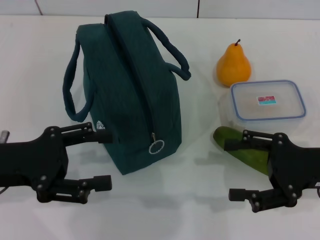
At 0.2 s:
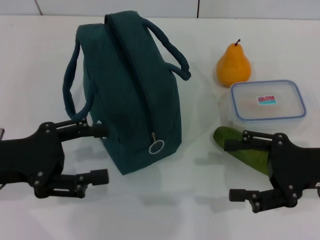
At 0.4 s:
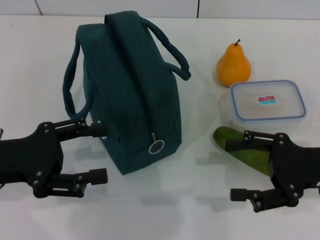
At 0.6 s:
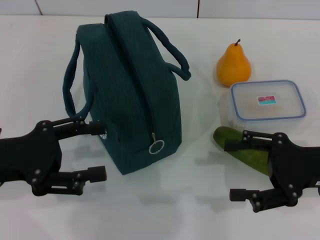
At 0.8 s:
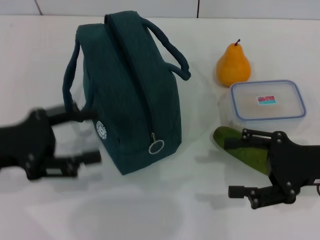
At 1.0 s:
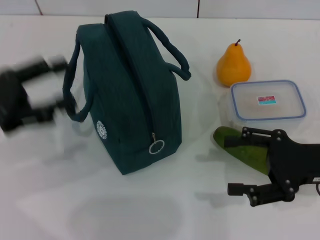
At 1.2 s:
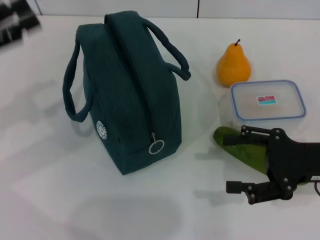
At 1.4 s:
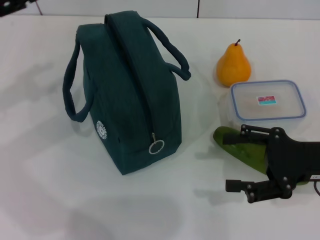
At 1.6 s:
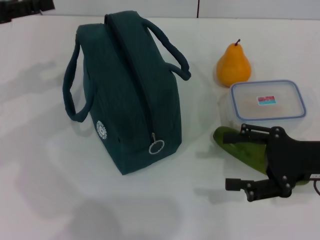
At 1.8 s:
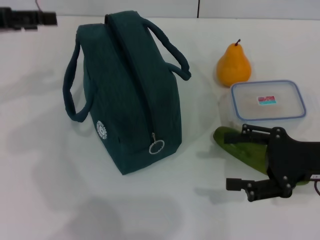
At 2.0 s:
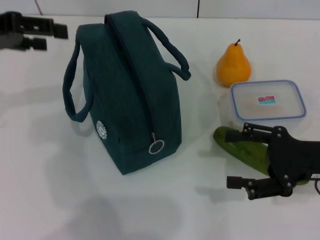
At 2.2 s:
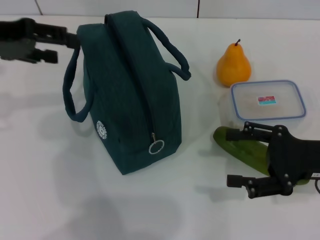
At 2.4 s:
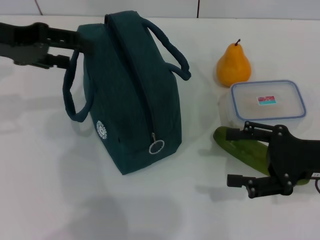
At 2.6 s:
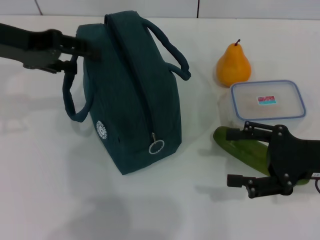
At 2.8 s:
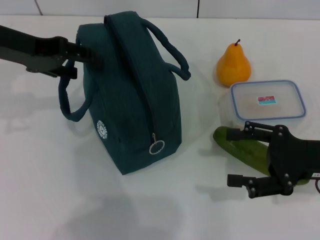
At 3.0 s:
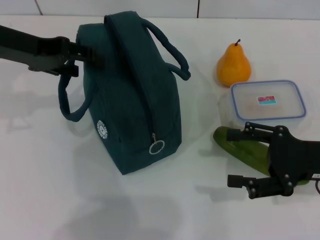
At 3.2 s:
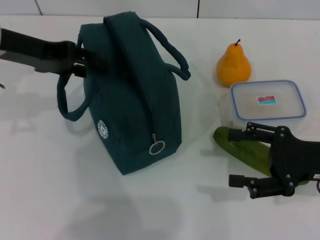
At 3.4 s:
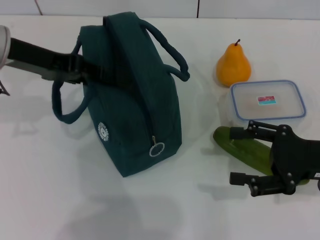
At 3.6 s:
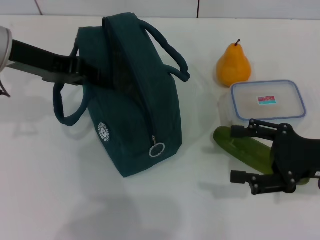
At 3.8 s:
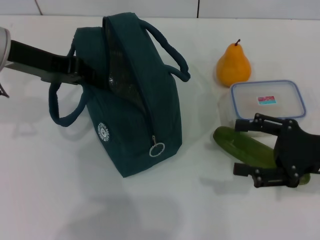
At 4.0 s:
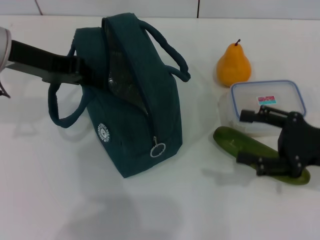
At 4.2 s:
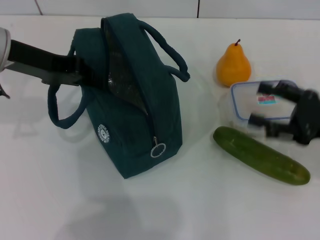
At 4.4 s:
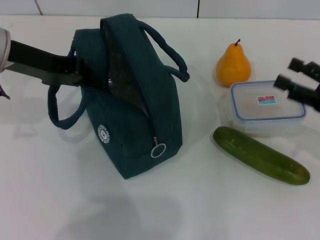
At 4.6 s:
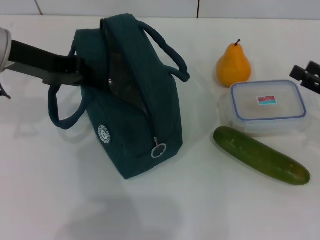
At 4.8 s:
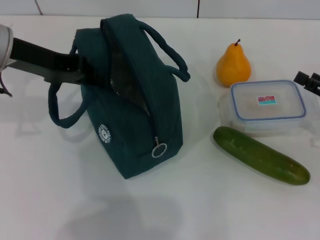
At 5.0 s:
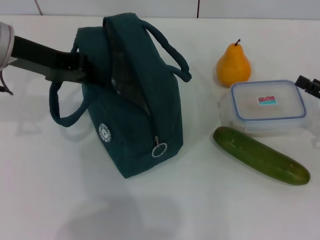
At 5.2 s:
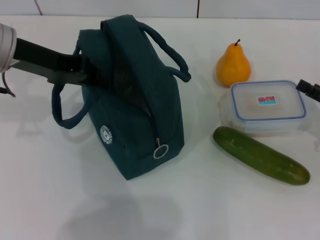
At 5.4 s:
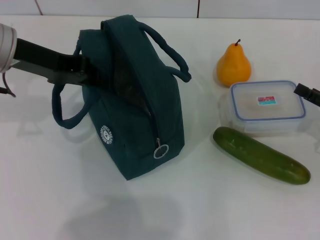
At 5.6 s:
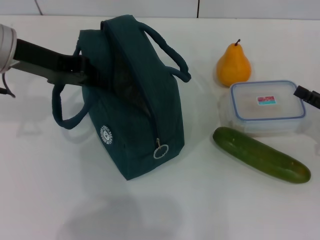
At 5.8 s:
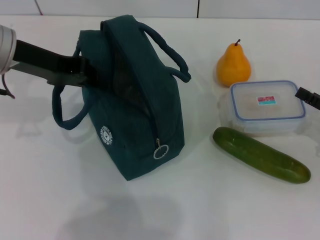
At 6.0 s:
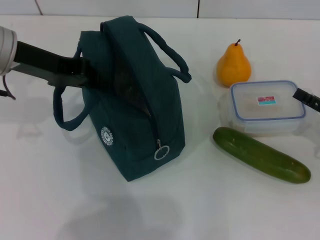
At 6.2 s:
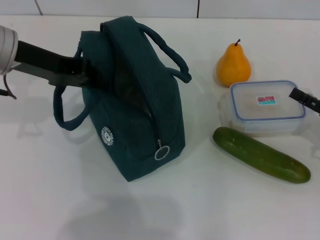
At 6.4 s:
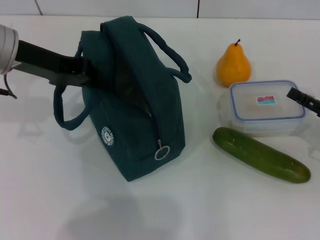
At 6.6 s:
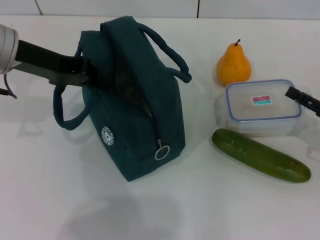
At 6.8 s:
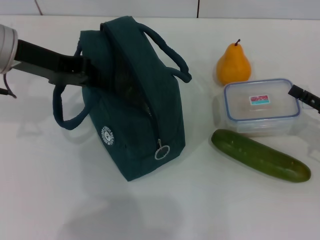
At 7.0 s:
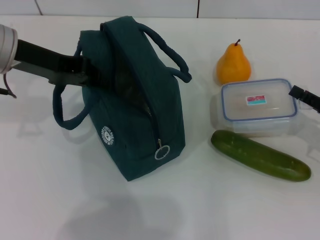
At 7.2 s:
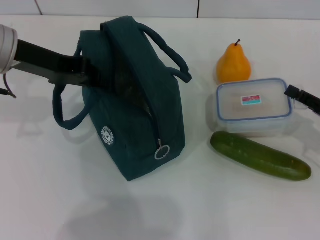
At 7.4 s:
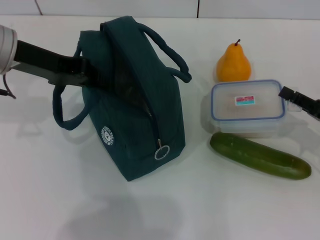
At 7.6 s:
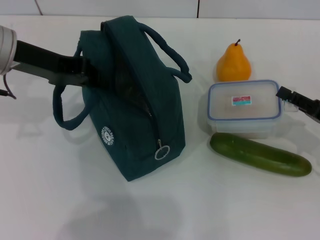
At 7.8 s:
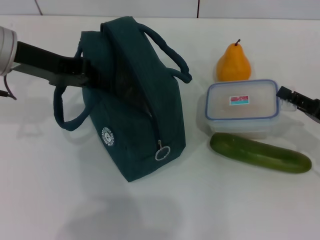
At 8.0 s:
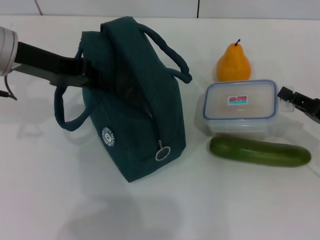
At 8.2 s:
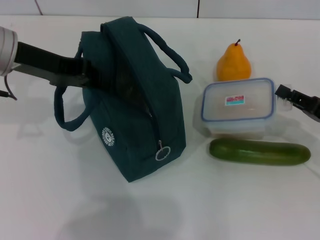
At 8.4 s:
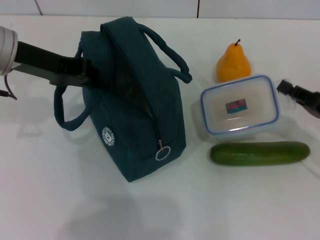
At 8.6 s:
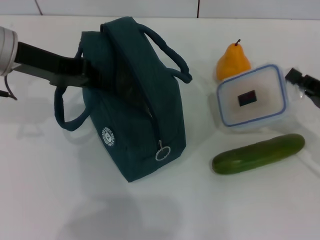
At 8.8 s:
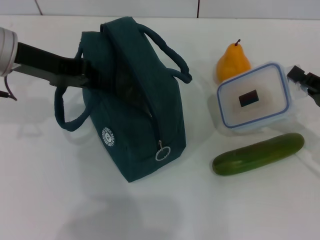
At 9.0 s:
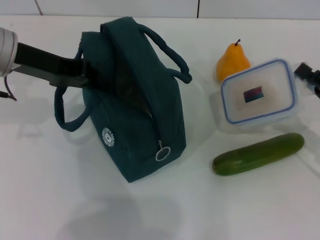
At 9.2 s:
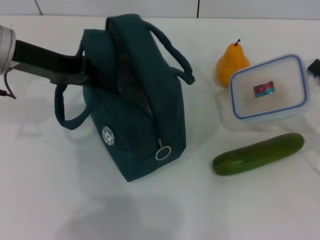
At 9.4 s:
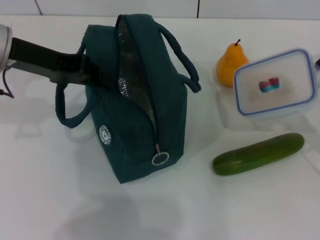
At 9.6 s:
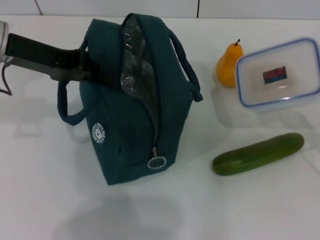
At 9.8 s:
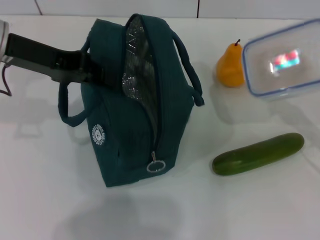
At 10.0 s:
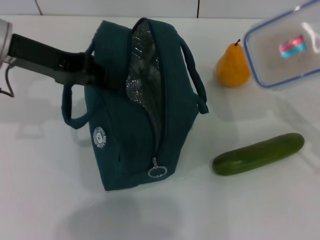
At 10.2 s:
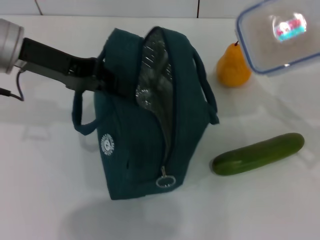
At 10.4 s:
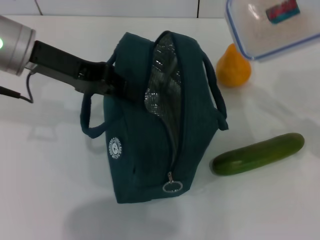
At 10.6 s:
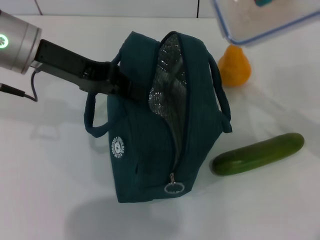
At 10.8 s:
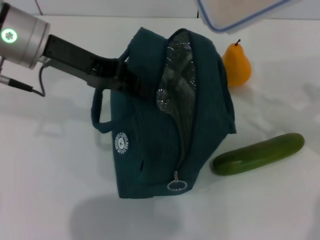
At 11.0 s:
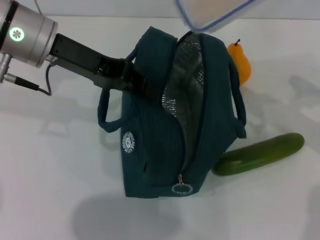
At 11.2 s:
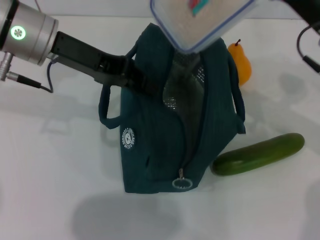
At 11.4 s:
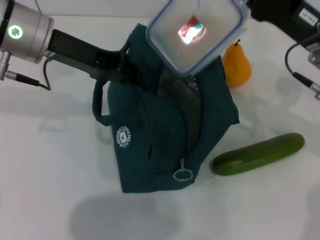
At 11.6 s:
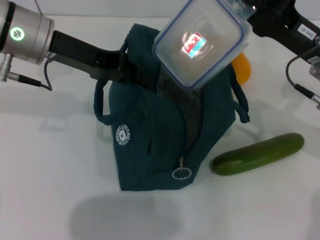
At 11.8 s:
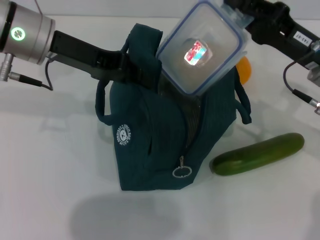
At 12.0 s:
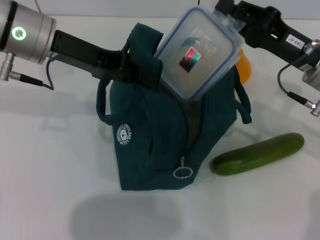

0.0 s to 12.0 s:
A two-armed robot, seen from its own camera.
Step, 0.0 to 3.6 s: Hold the lunch bag with your left hand.
Step, 3.8 to 8.0 s: Pick up the lunch box with your right hand.
0.0 to 1.6 s: The left gripper moves forward, upward and to the left, approximately 15 cm.
1.6 to 3.0 s: The left gripper goes roughly 10 cm to the right.
3.0 to 4.4 s: The left gripper closes its fingers. The right gripper heads to the right, covering roughly 5 cm.
4.4 to 6.0 s: The right gripper shifts by roughly 5 cm.
6.0 to 7.6 s: The right gripper closes up.
7.6 to 9.0 s: The right gripper closes.
9.0 to 10.4 s: The right gripper goes about 5 cm upward.
10.4 to 12.0 s: The right gripper travels to the left and forward by some 10 cm.

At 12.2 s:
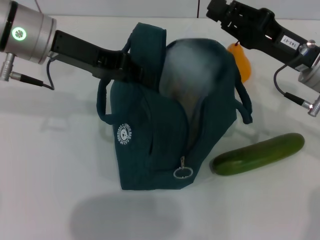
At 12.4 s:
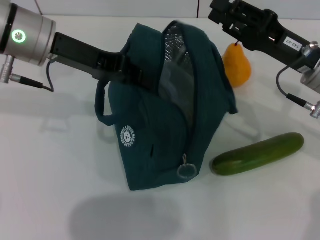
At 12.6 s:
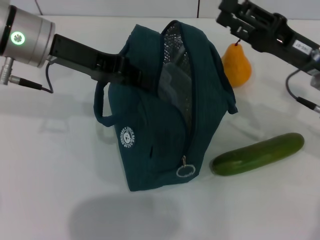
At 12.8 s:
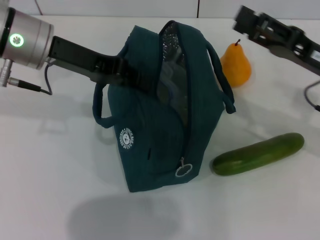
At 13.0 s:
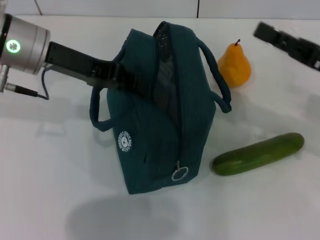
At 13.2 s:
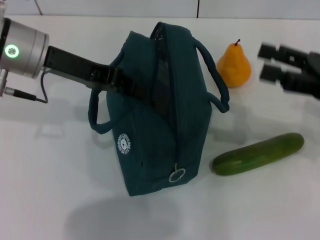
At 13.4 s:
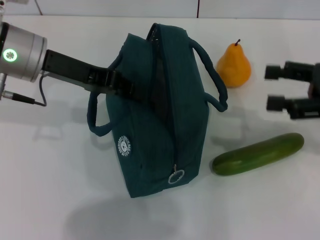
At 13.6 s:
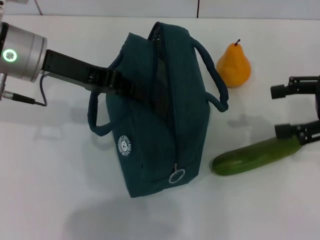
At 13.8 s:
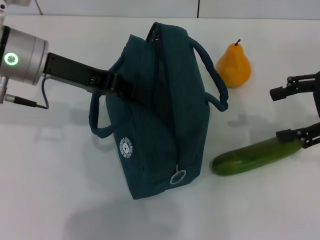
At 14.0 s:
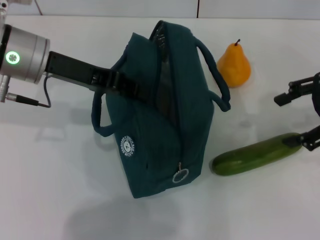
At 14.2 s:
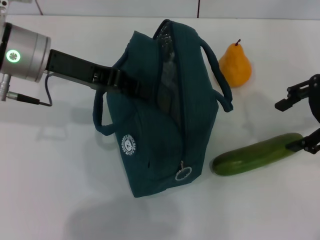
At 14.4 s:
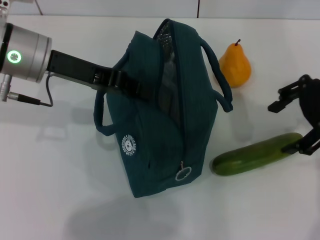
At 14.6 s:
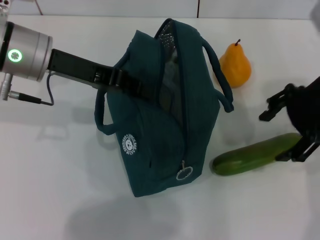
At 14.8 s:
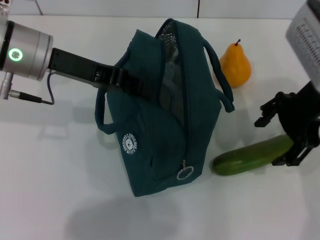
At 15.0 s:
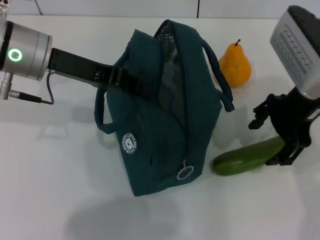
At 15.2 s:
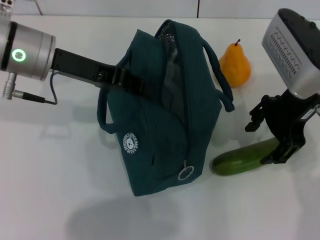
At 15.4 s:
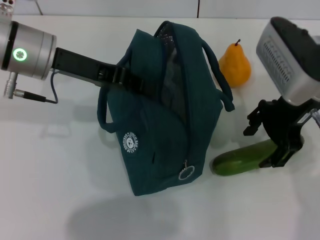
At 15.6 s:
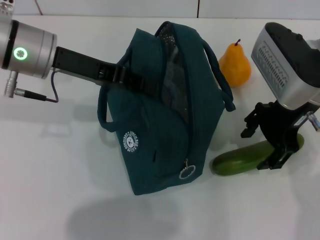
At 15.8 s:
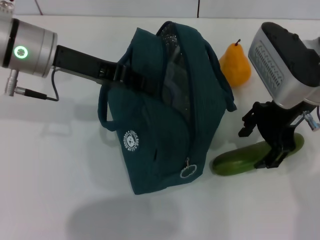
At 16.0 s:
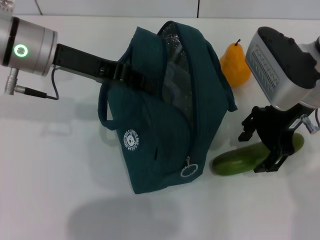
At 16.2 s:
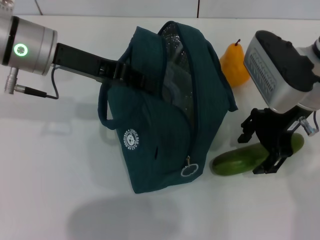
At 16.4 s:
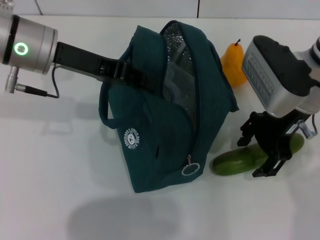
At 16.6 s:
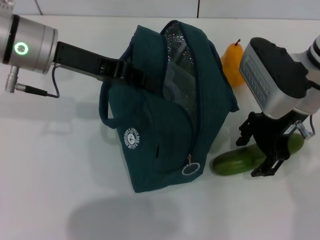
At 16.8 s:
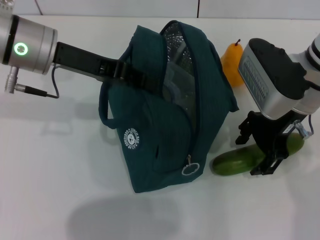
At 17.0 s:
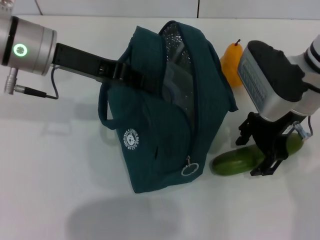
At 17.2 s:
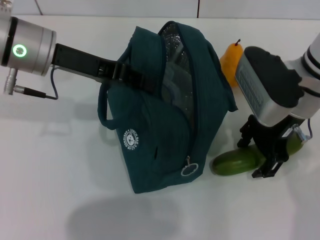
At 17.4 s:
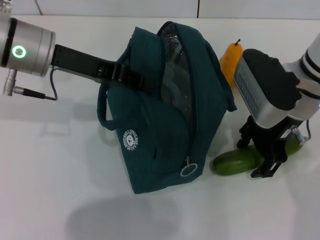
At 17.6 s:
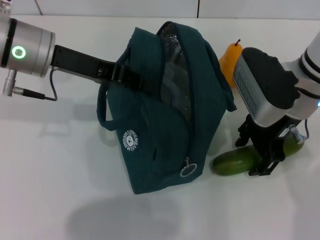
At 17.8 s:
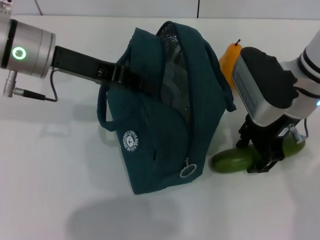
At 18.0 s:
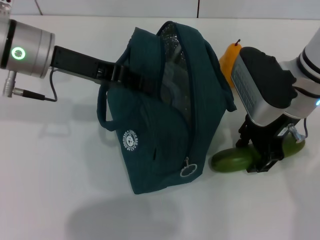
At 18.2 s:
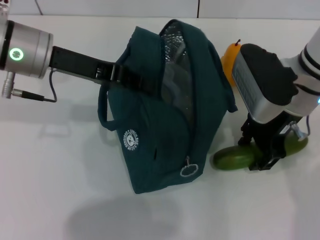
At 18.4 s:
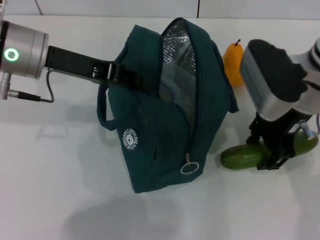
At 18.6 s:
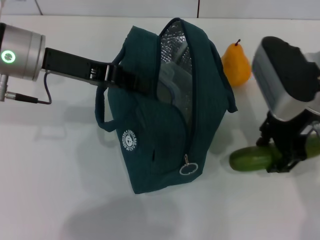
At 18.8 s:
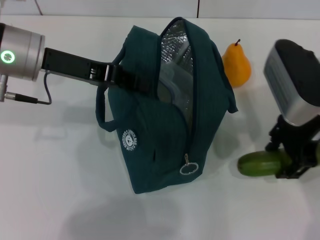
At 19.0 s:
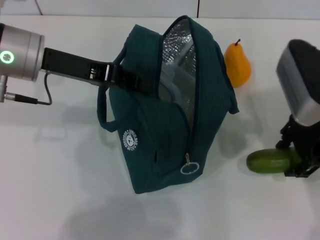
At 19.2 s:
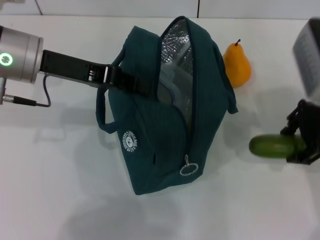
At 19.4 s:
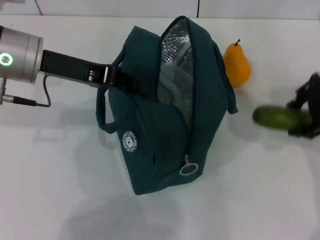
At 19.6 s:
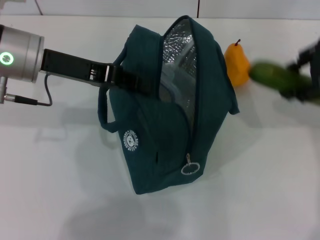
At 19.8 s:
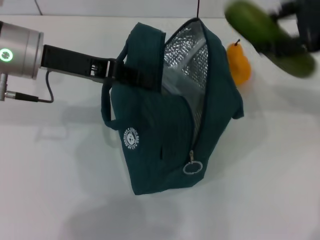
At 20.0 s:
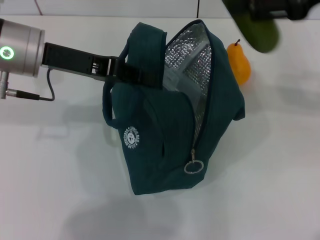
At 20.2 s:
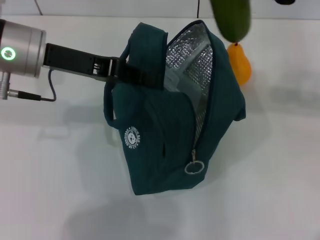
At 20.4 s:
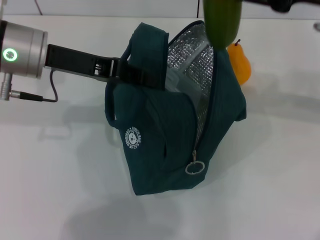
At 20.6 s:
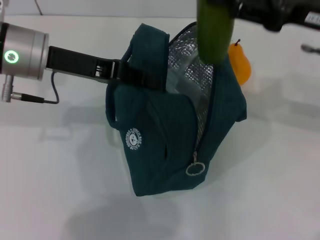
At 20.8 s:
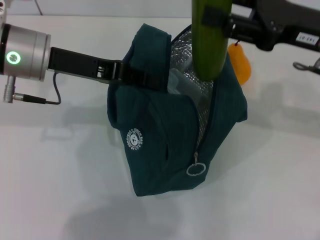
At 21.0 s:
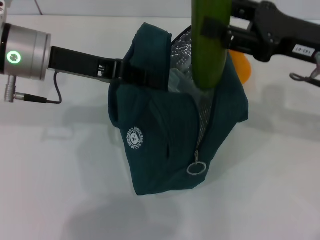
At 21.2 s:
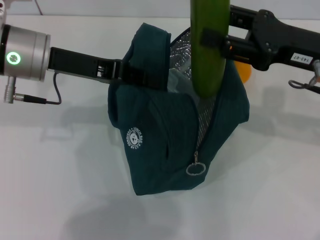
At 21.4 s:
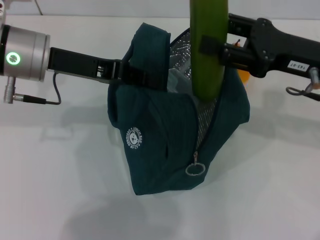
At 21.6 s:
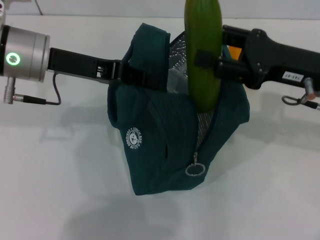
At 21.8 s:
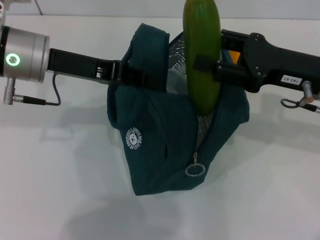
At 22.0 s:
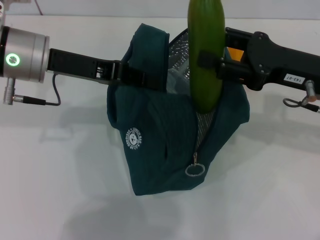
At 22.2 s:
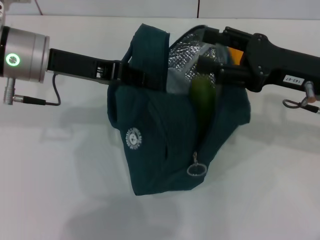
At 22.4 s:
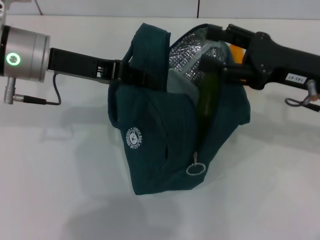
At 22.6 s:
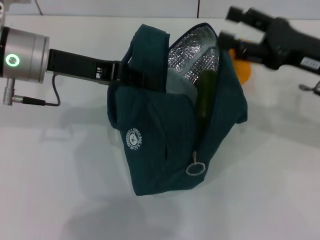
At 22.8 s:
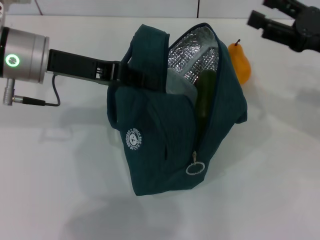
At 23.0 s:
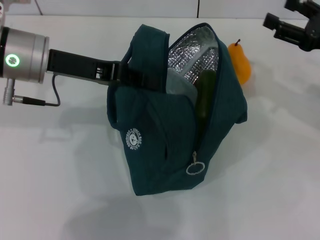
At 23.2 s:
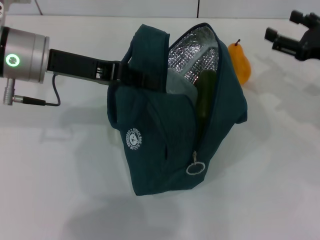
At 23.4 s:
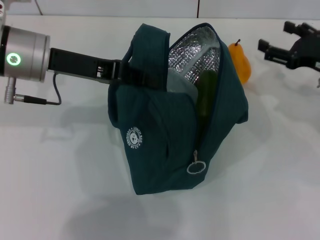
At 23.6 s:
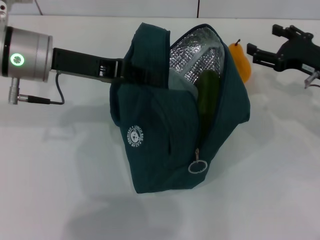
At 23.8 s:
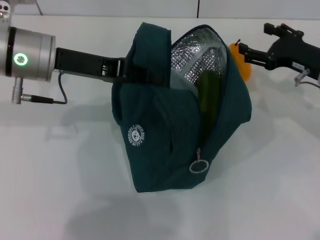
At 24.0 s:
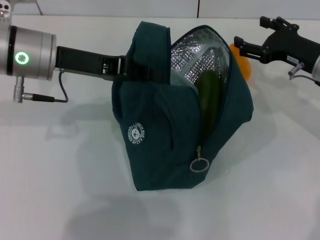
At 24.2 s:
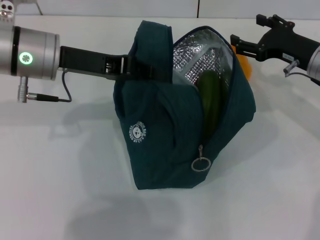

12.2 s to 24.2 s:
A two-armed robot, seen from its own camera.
Step, 12.8 to 17.8 s: Pick up the cucumber with your right hand.
Step, 18.0 to 22.4 s: Put the cucumber into the lunch bag with your right hand.
12.2 to 13.8 s: The right gripper shifts approximately 10 cm to the right and upward, and opens up.
13.8 to 15.2 s: The right gripper shifts roughly 15 cm to the left.
16.6 to 18.2 s: The two grippers keep their place.
18.2 to 19.8 s: The right gripper heads upward and to the right, covering roughly 15 cm.
19.8 to 21.2 s: The right gripper travels downward by roughly 10 cm.
21.2 to 22.6 s: There are only small adjustments of the grippers.
22.6 to 24.2 s: The right gripper shifts approximately 10 cm forward and downward.
